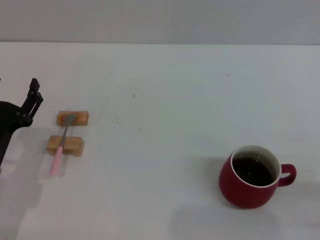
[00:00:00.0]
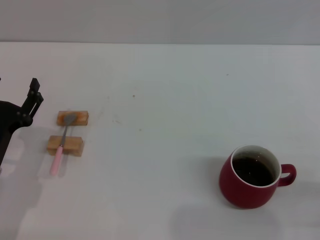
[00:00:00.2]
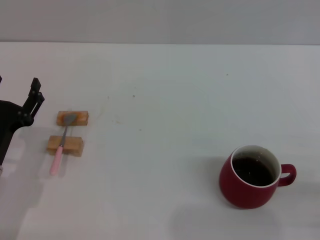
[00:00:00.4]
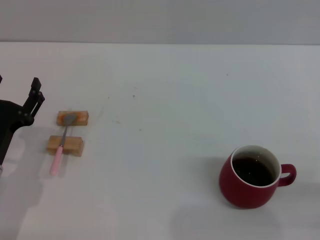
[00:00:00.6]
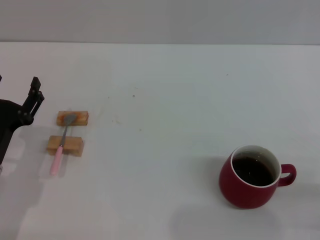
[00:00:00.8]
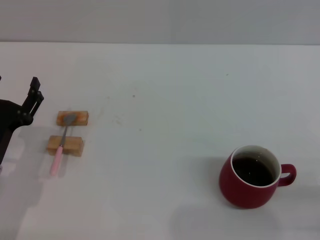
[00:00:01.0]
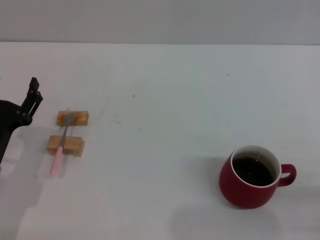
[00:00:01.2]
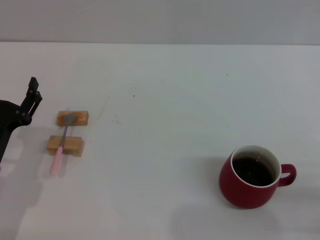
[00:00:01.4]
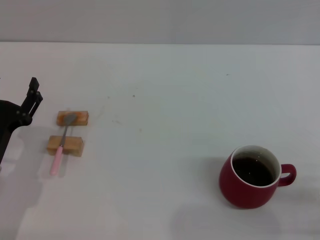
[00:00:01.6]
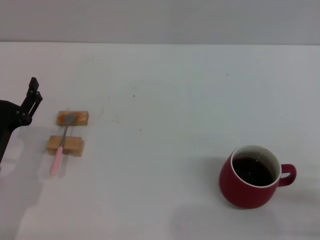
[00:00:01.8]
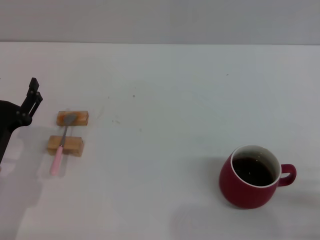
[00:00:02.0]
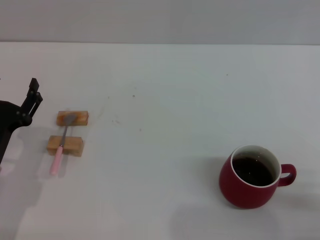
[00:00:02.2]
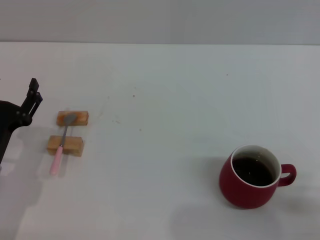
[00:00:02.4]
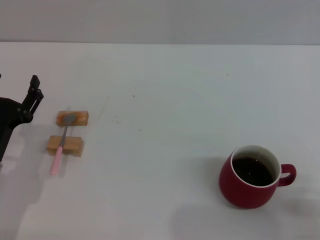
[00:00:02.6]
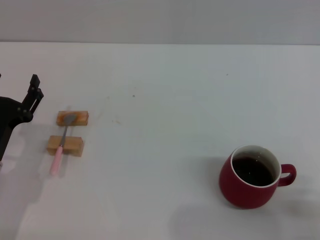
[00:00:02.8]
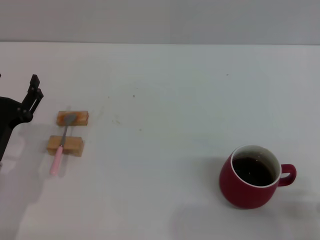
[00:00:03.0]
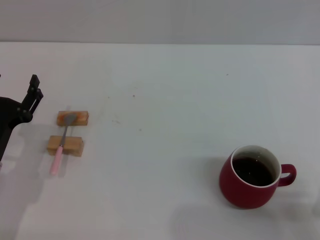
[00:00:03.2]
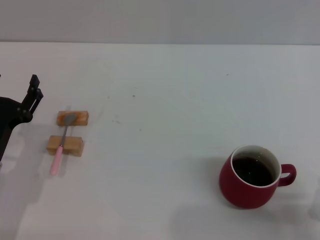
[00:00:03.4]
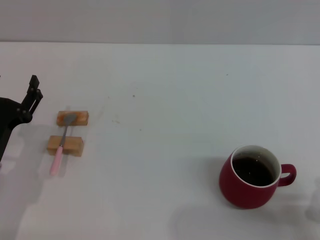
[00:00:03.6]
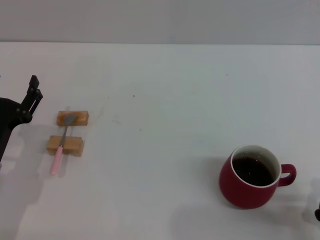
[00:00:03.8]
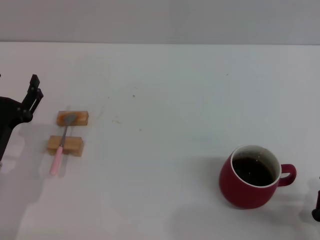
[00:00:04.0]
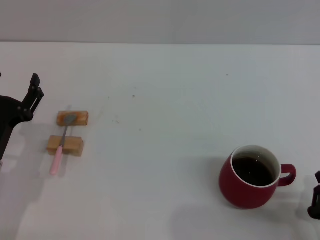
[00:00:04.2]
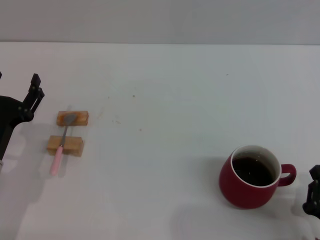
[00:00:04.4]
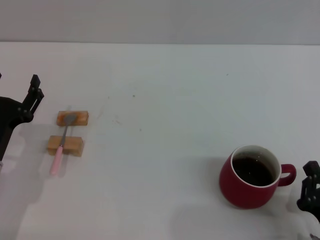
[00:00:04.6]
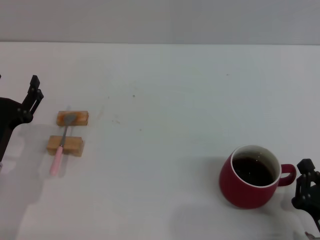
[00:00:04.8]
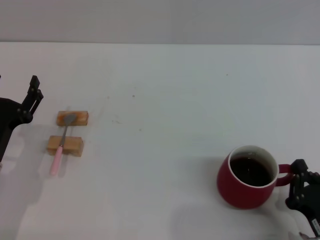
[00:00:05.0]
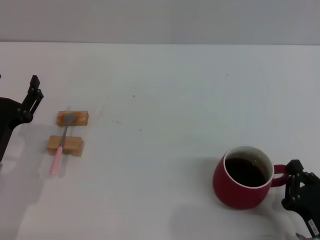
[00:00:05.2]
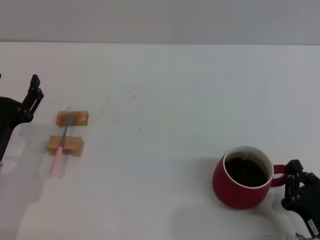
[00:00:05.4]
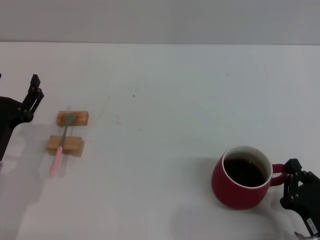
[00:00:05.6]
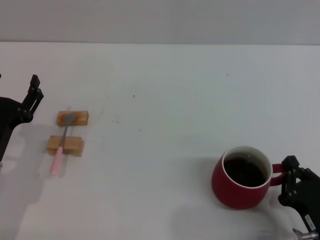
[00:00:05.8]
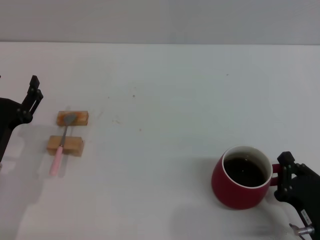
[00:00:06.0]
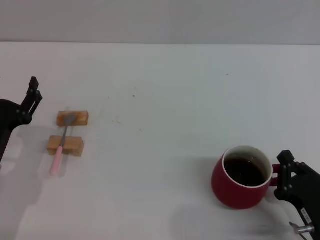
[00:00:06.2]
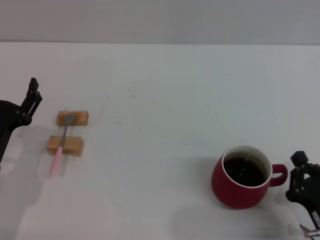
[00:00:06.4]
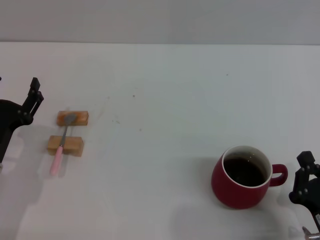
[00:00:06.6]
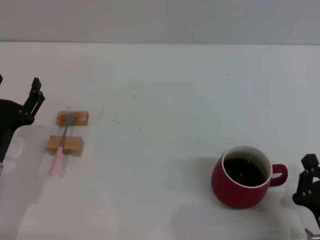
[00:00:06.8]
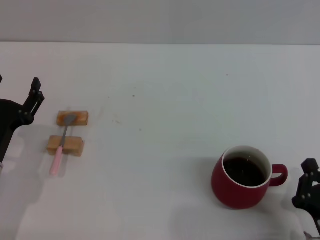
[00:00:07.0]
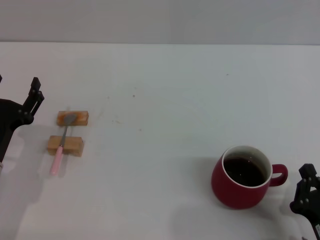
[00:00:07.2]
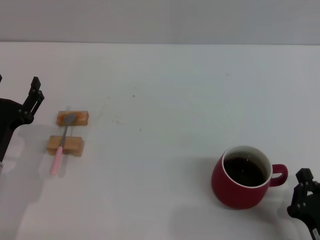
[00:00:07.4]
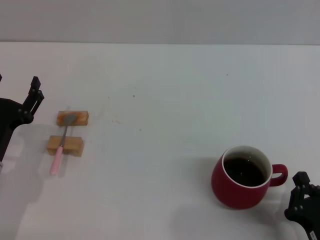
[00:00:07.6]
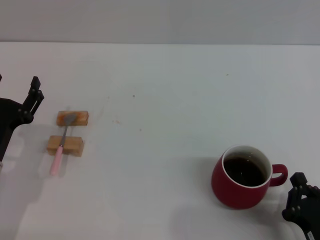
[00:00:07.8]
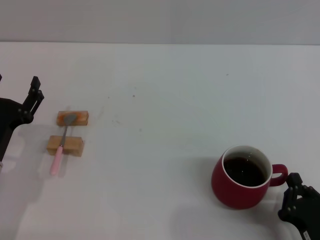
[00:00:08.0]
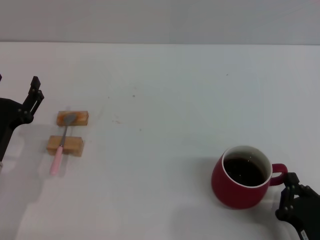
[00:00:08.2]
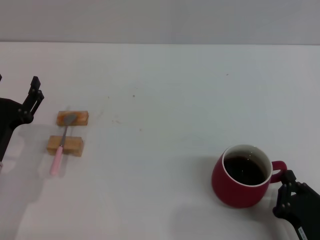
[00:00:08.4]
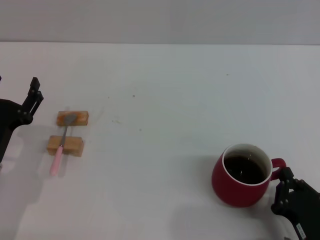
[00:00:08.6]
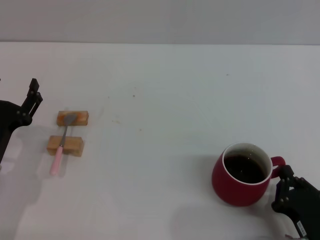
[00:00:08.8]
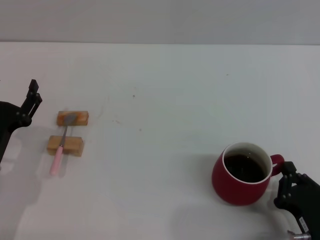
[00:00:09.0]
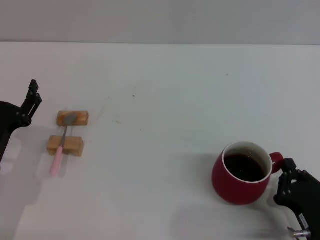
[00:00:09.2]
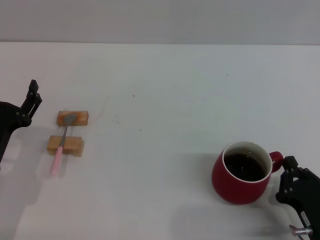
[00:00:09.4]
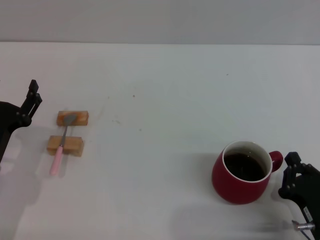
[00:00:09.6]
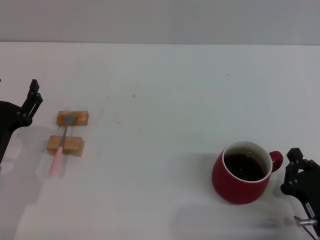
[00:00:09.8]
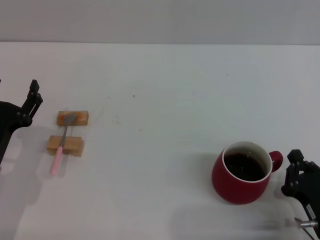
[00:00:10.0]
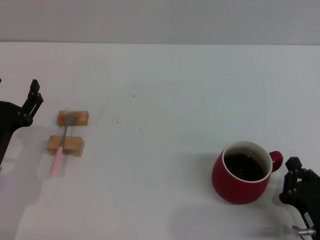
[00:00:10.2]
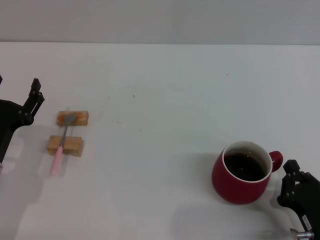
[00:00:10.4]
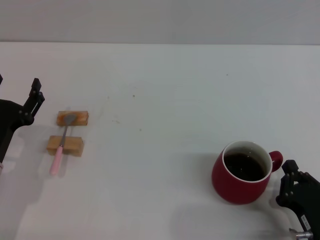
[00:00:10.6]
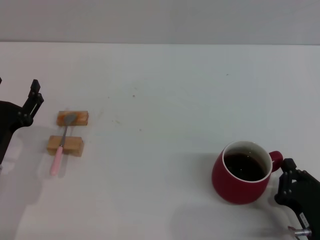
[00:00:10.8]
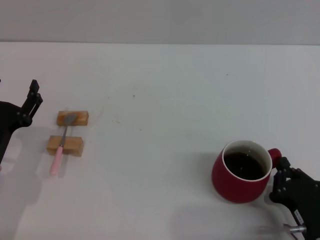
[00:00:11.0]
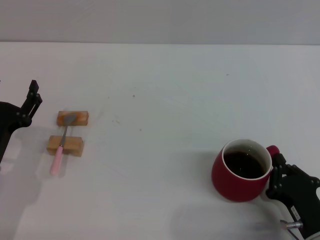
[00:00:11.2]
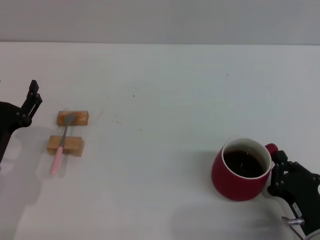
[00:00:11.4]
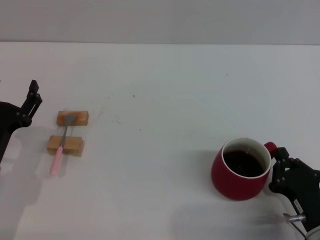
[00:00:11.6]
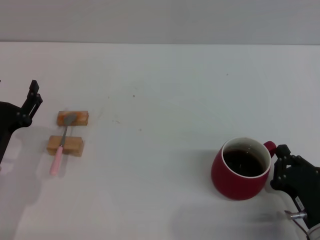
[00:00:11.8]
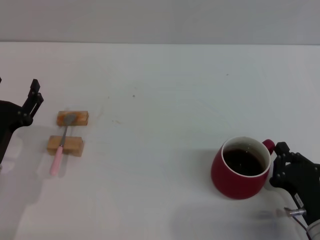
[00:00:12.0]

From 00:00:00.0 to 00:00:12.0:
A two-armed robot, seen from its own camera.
Task of the whole recording: Move the red cup to the center, lift the pink spoon, stir it three times in the cup, and put the spoon into the cup.
From 00:00:03.0 to 00:00:09.0: The grippers make only small movements.
From 00:00:09.0 to 00:00:12.0: The grippers make only small movements.

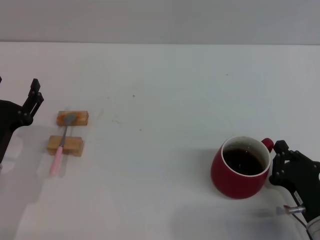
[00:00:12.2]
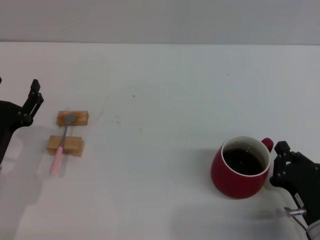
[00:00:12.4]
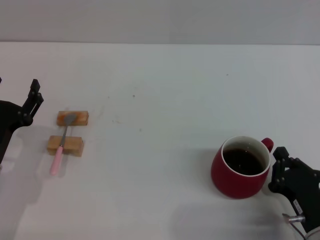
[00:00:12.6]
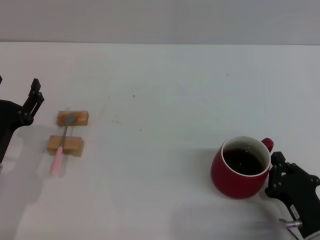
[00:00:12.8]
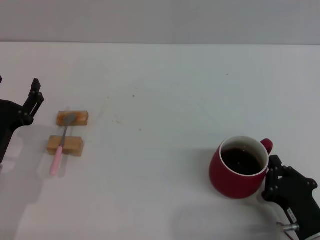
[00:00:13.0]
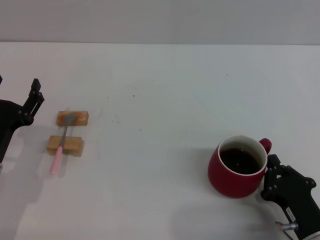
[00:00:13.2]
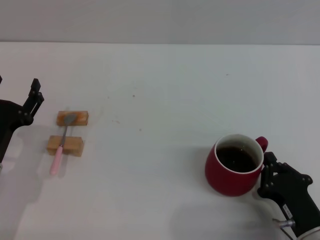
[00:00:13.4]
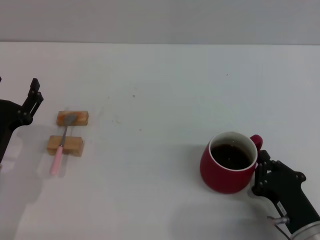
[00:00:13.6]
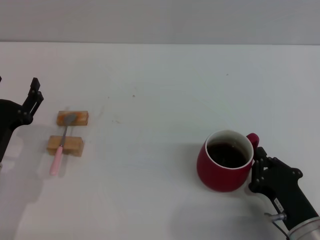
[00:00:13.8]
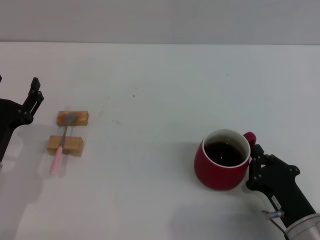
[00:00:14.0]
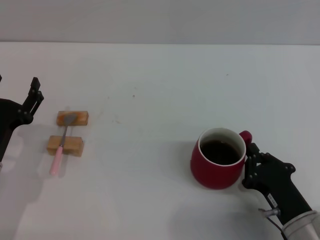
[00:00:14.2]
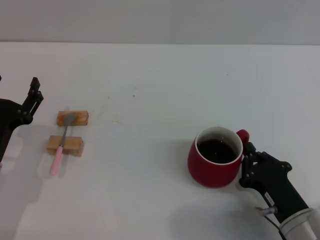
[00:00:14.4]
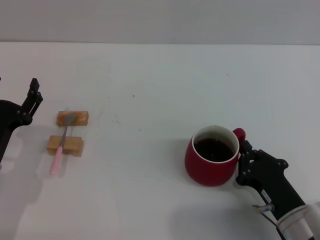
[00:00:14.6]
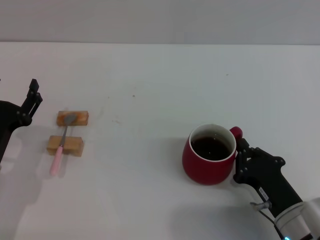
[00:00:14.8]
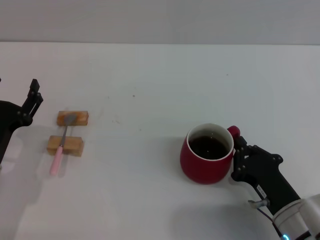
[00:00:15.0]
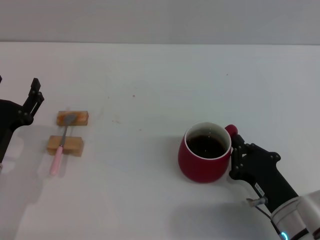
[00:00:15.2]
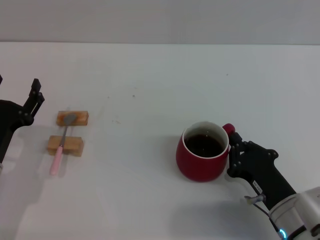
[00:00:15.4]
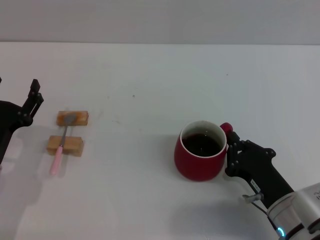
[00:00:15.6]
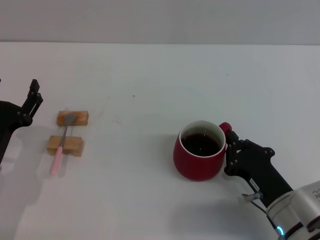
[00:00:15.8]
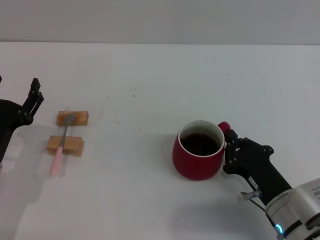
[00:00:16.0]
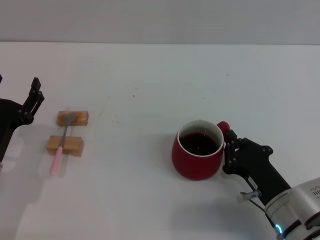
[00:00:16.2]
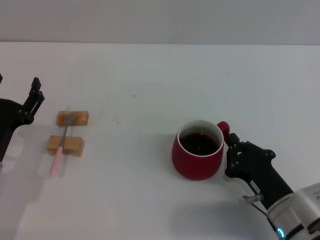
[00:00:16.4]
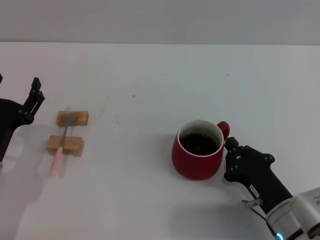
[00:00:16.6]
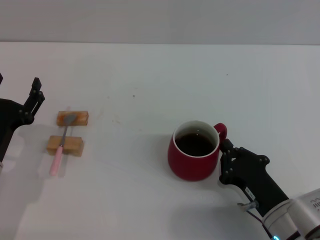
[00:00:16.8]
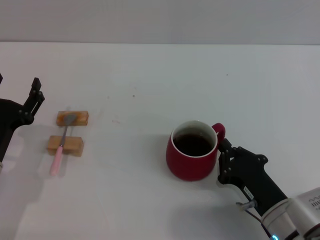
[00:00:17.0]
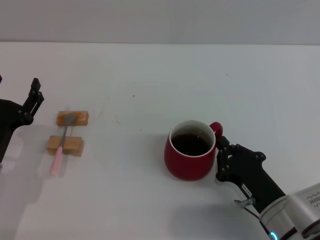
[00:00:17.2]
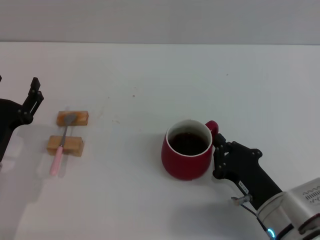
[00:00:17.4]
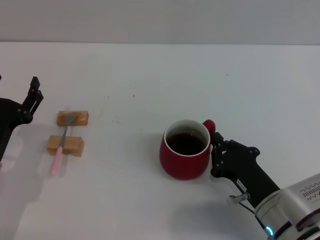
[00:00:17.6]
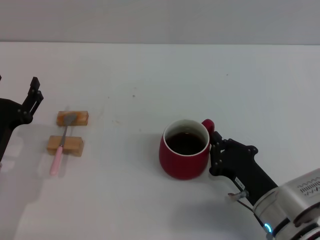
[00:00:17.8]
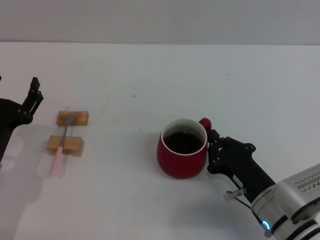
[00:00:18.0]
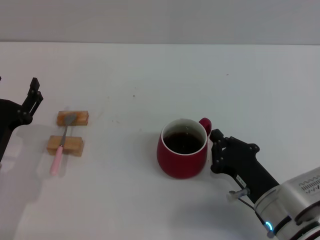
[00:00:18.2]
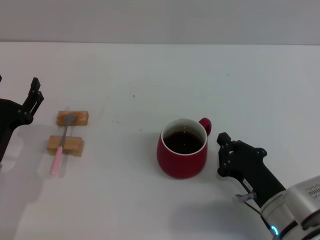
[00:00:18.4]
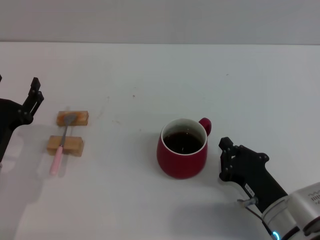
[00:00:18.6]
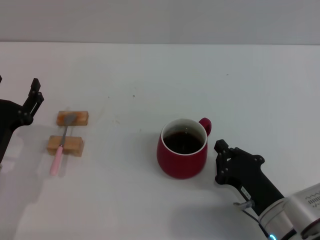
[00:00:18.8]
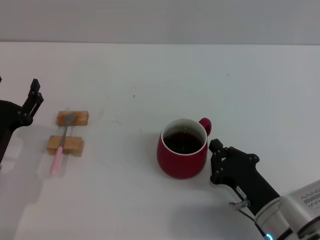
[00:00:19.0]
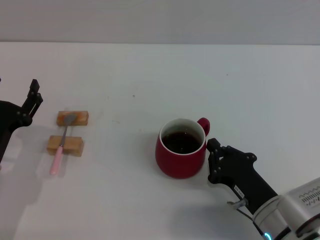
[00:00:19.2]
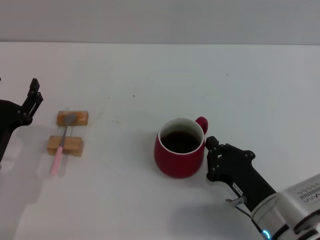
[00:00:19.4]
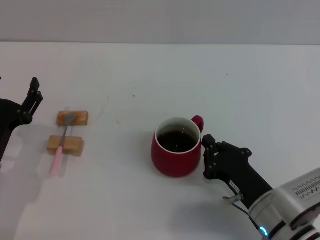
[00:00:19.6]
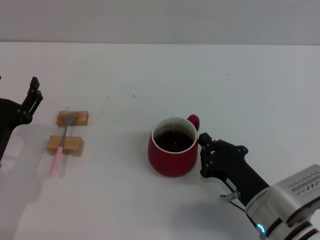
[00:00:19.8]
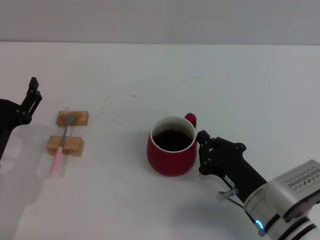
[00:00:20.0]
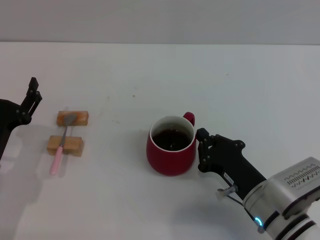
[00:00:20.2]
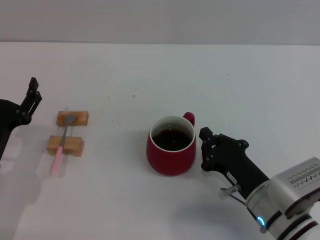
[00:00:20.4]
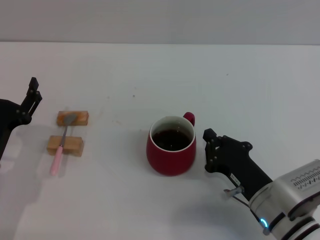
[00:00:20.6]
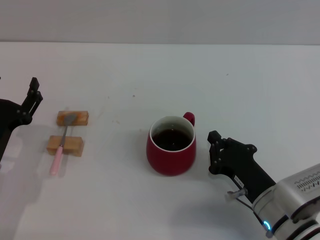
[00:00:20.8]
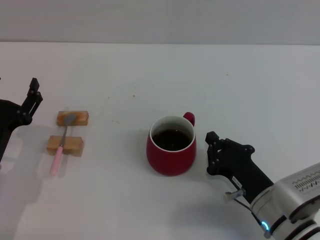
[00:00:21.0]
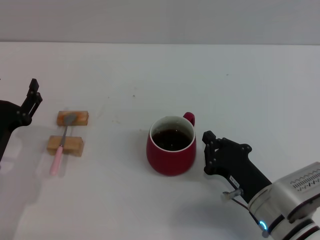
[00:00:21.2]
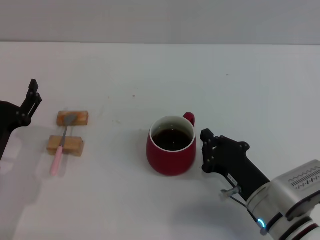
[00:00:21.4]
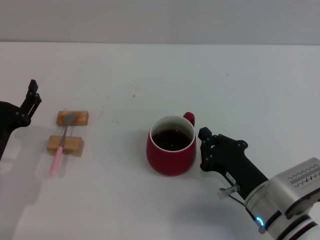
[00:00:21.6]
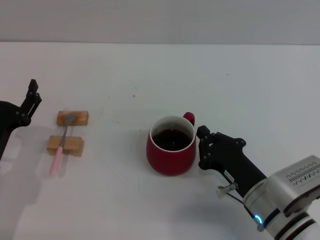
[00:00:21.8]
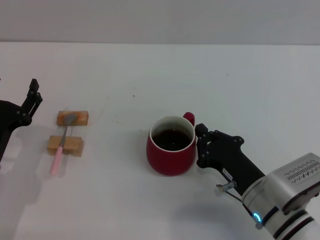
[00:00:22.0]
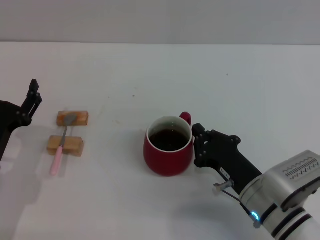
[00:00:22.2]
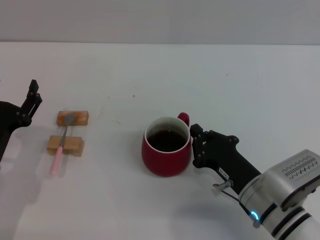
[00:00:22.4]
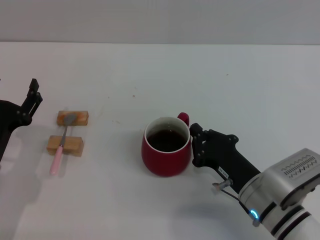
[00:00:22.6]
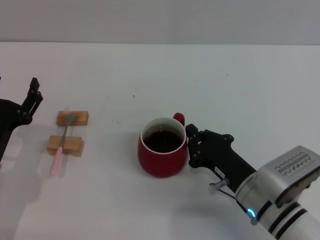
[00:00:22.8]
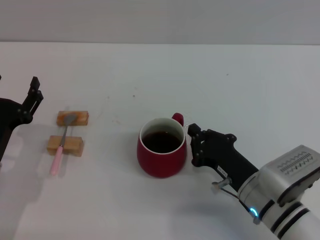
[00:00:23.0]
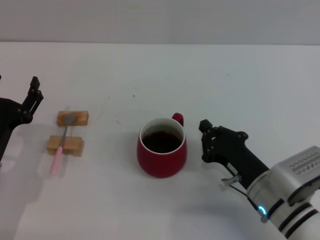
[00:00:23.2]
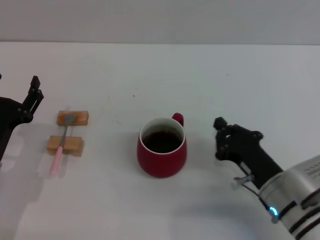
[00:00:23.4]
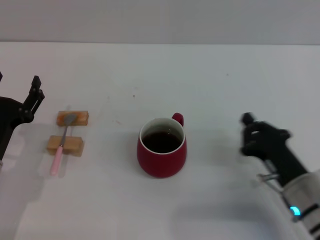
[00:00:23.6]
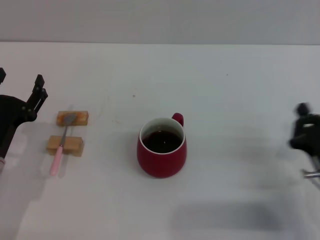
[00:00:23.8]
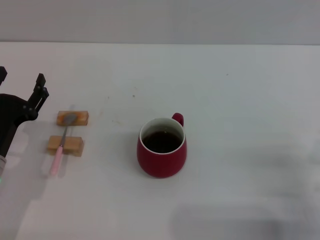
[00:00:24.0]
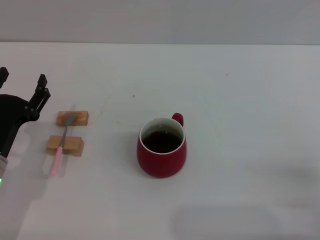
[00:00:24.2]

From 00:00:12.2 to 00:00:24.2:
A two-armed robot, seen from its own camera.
Task of the whole recording: Move the red cup to the center, lift the pink spoon, stir it three times in the cup, and put the spoon into the cup.
Step, from 00:00:12.2 to 00:00:23.2: Move the cup with coffee to the center of view with the right gripper.
From 00:00:12.2 to 00:00:15.2: The grippers move only a little.
From 00:00:15.2 to 00:00:16.6: Neither gripper changes place.
From 00:00:16.6 to 00:00:19.8: The grippers make only small movements.
From 00:00:19.8 to 00:00:21.2: Neither gripper changes place.
From 00:00:21.2 to 00:00:22.6: The grippers make only small movements.
From 00:00:22.6 to 00:00:24.2: The right gripper travels to the right and backward by approximately 15 cm.
